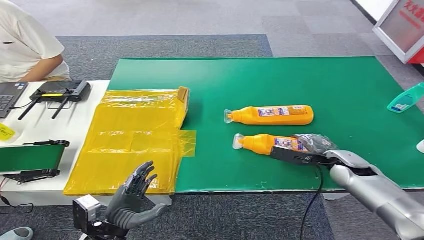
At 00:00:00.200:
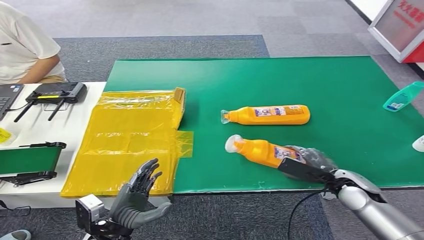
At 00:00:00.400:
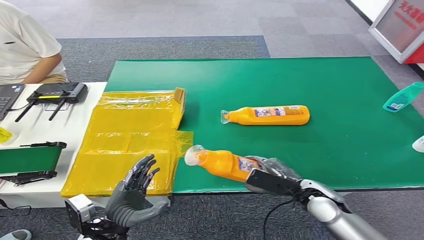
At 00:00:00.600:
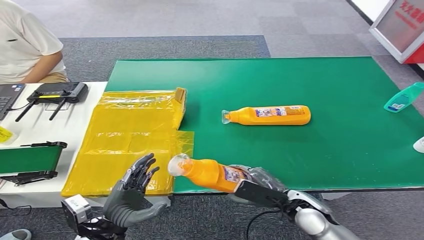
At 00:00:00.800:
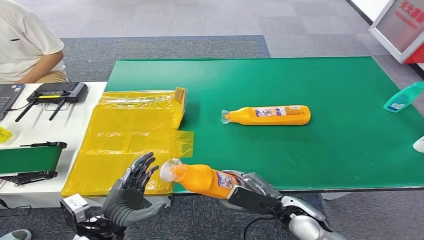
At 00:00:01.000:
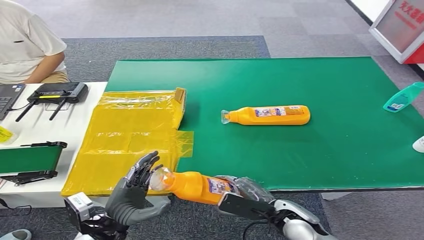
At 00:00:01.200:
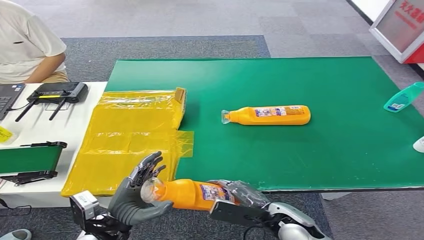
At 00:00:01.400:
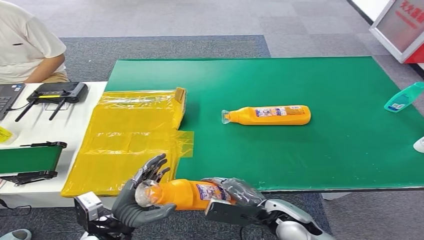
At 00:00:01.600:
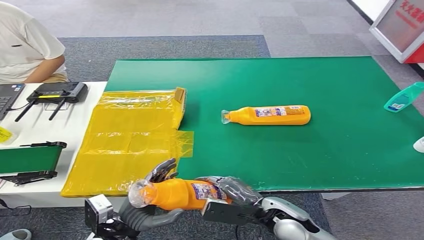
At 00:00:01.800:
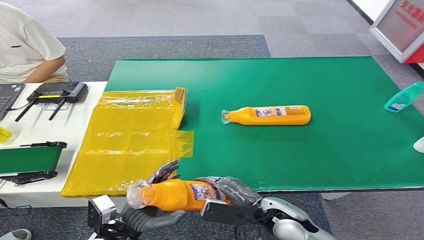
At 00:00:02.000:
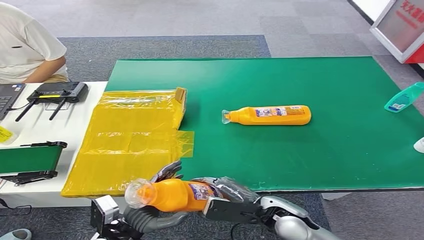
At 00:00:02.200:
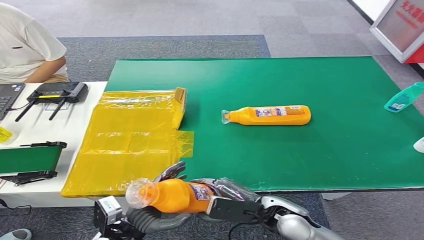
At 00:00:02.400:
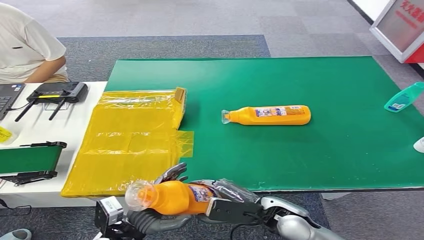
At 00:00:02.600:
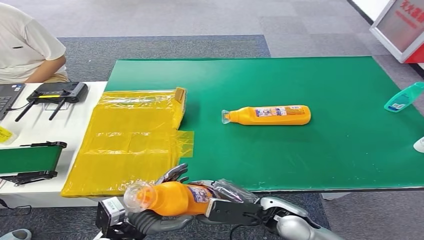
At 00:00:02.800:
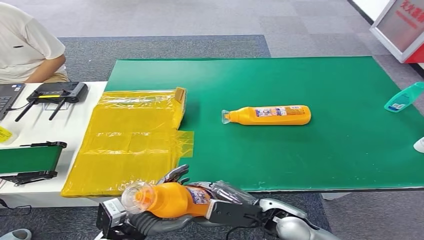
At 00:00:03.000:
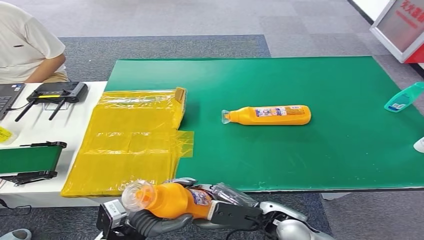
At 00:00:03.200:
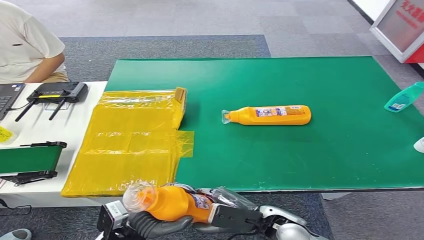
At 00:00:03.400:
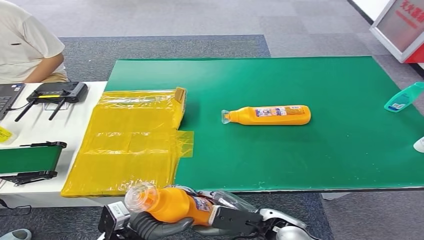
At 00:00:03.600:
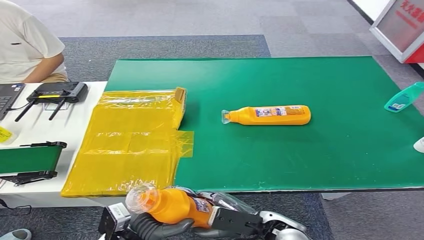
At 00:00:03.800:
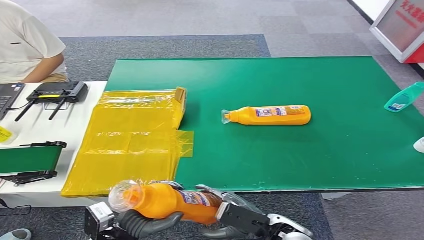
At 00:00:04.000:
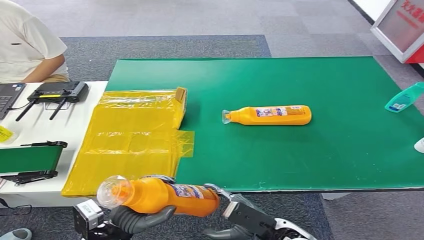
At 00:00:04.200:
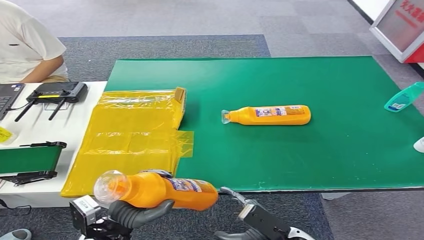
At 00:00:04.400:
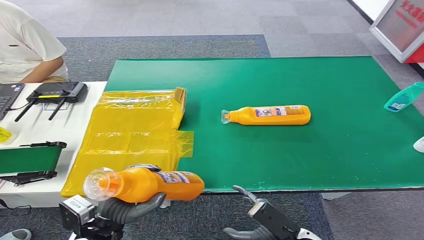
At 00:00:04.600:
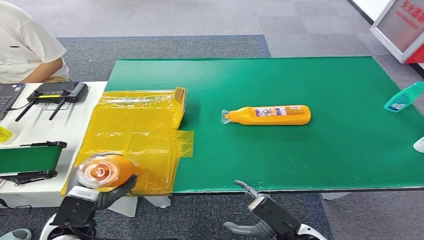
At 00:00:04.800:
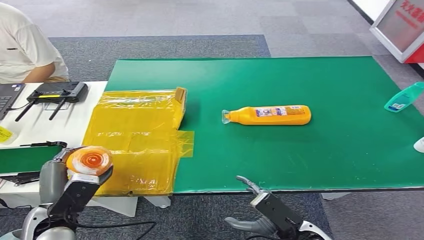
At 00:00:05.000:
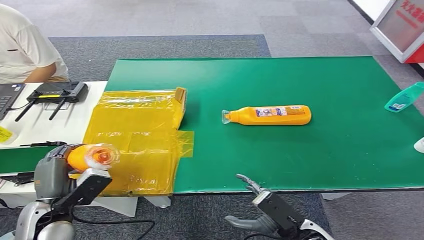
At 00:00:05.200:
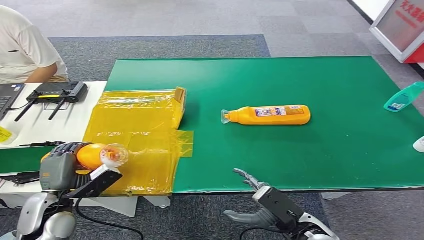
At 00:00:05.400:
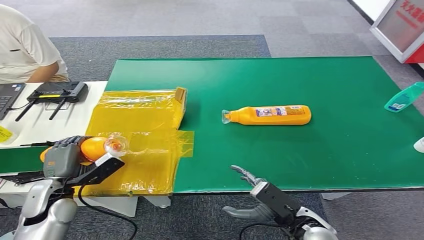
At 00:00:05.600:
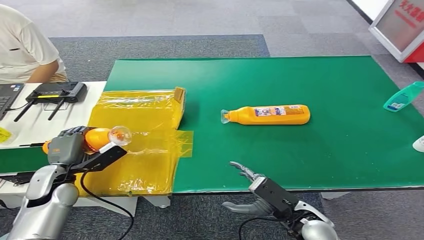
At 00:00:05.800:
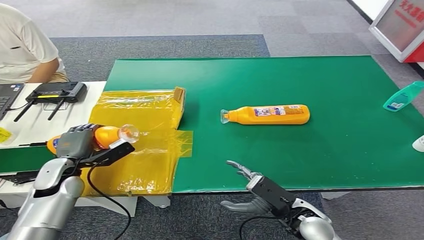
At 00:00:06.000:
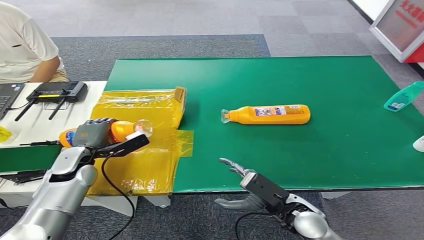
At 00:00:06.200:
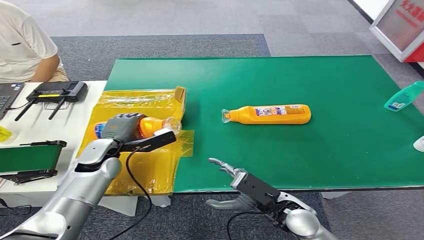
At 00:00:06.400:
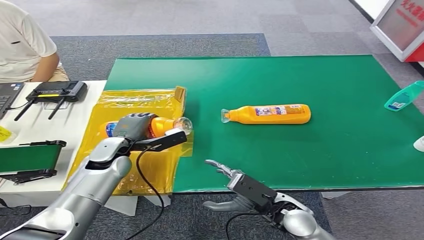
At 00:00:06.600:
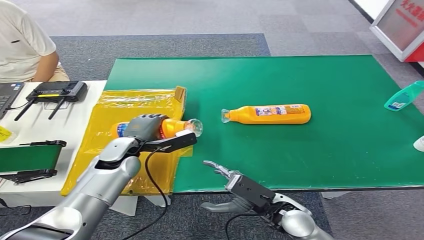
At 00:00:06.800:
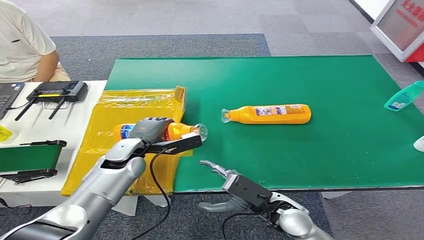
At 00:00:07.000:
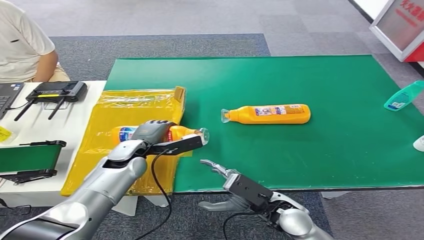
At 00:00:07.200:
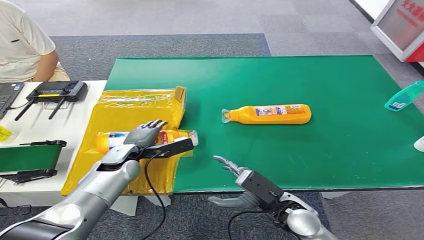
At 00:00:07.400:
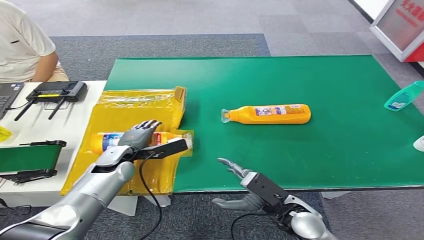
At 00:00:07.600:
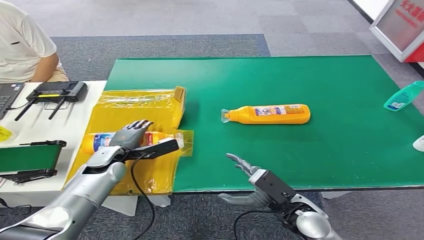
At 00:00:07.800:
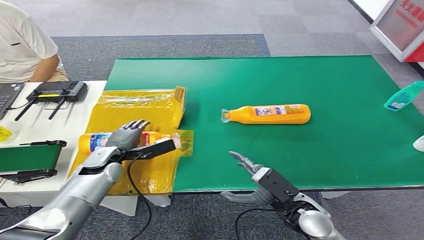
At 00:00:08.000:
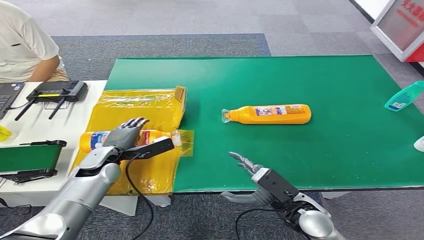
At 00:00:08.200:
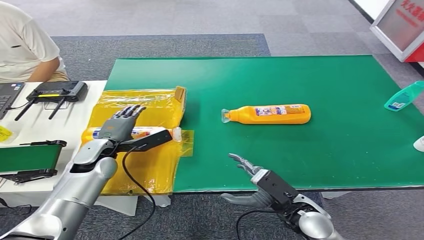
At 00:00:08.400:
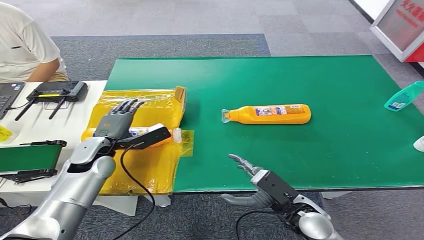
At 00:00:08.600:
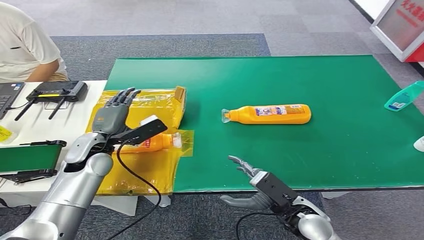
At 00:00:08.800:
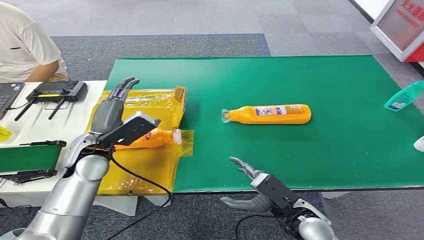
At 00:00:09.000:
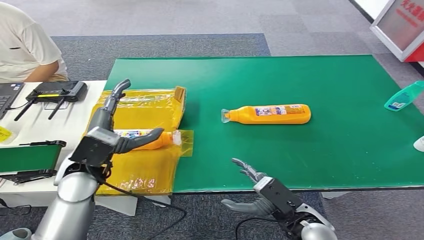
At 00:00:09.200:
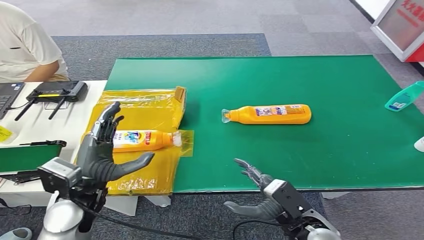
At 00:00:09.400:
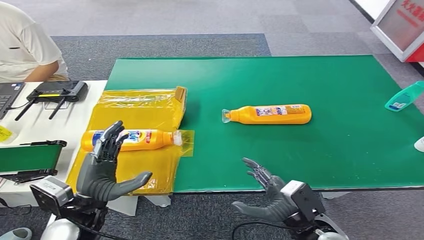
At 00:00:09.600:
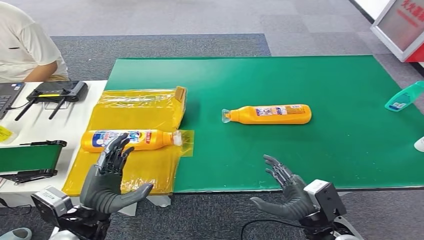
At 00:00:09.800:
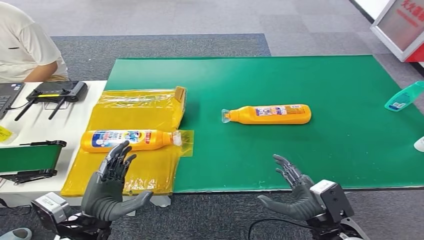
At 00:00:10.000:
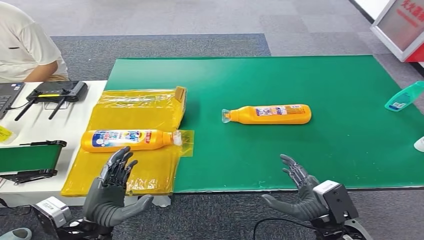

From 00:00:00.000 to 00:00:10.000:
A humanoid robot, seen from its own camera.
Step, from 00:00:01.000 to 00:00:10.000: Turn the bottle to the front side.
From 00:00:01.400 to 00:00:02.800: The hands make only small movements.
From 00:00:02.800 to 00:00:04.200: The right hand heads backward, covering roughly 5 cm.
From 00:00:04.200 to 00:00:05.800: The left hand moves forward and to the left, approximately 20 cm. Meanwhile the right hand is displaced forward by approximately 5 cm.
From 00:00:05.800 to 00:00:07.200: The left hand travels to the right and forward by about 15 cm.
From 00:00:07.200 to 00:00:08.600: The left hand travels upward by about 5 cm.
From 00:00:08.600 to 00:00:10.000: The left hand goes about 20 cm backward; the right hand goes about 10 cm backward and to the right.
